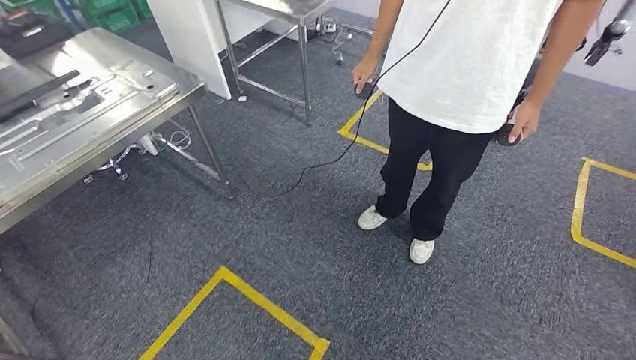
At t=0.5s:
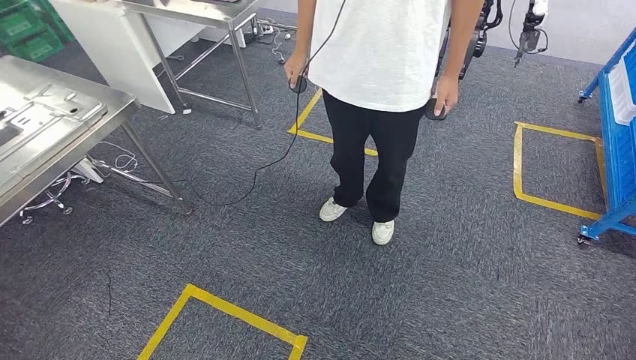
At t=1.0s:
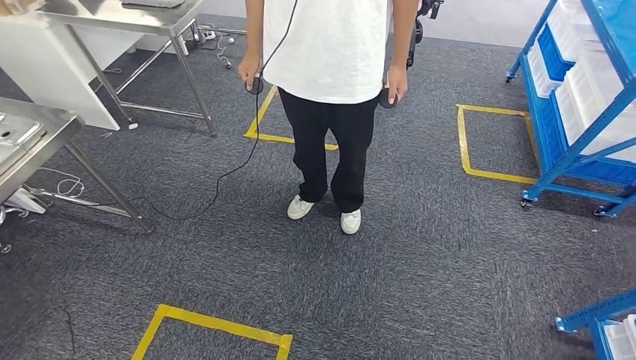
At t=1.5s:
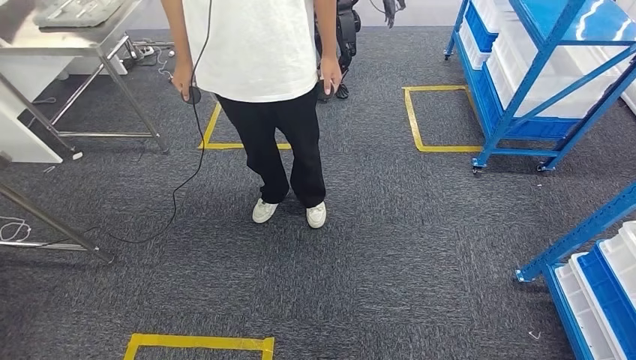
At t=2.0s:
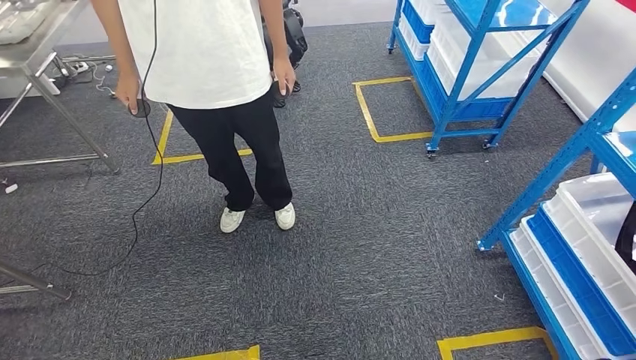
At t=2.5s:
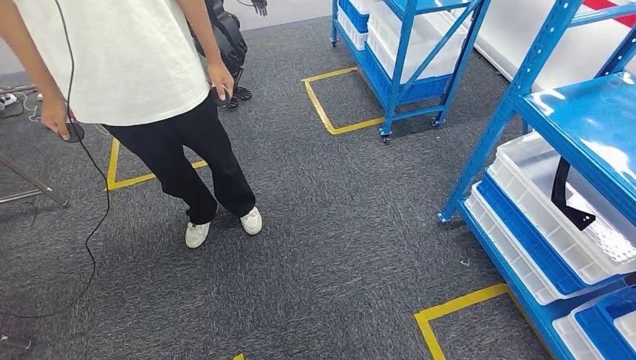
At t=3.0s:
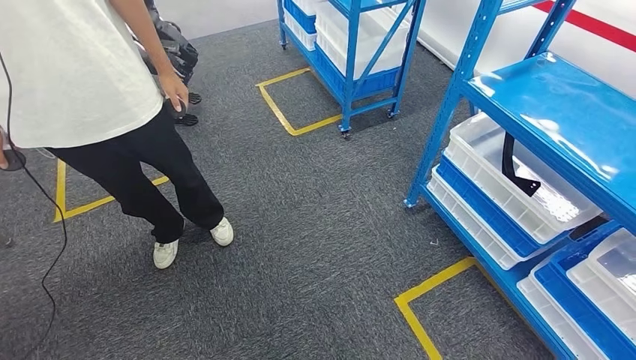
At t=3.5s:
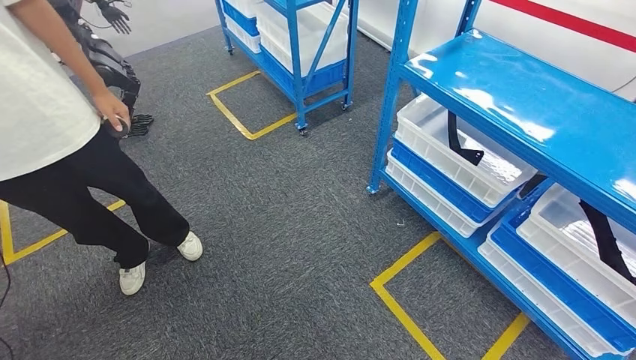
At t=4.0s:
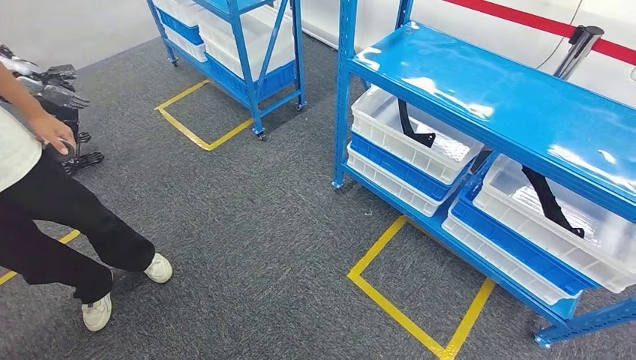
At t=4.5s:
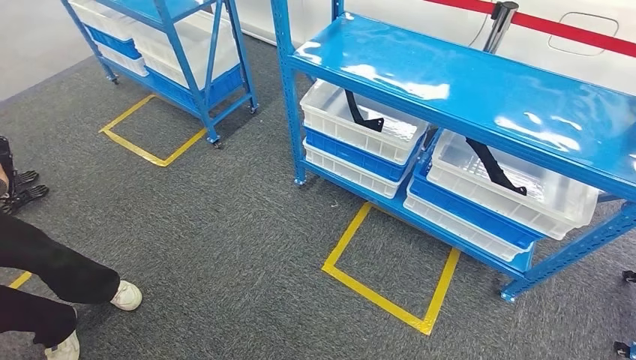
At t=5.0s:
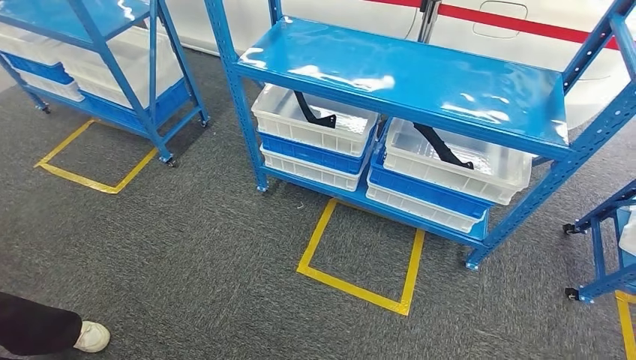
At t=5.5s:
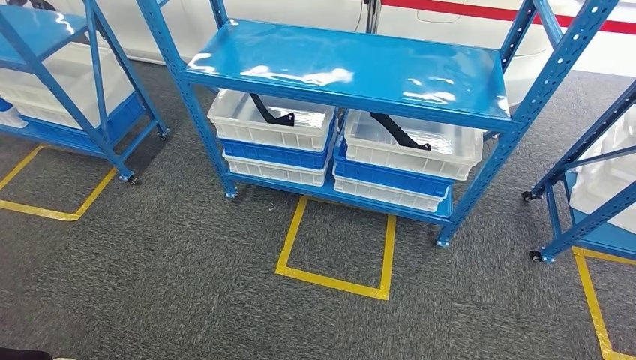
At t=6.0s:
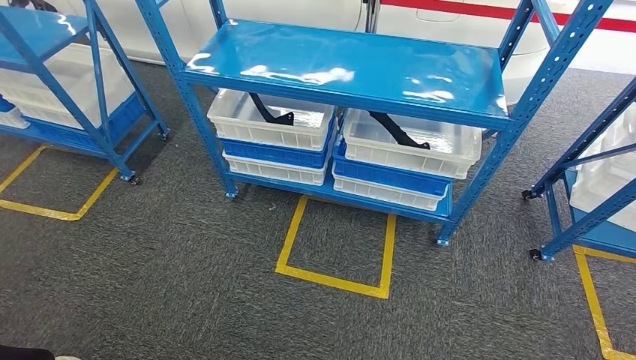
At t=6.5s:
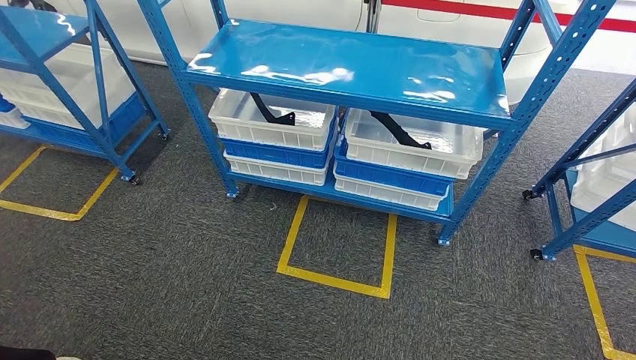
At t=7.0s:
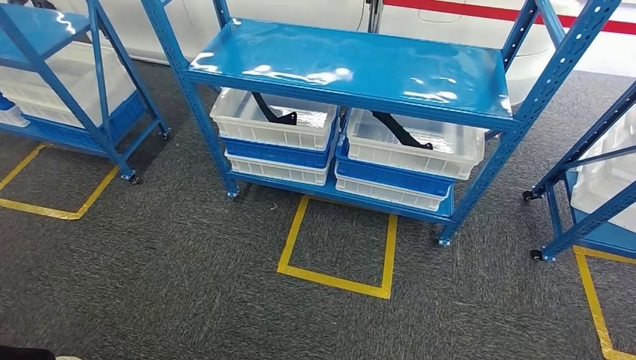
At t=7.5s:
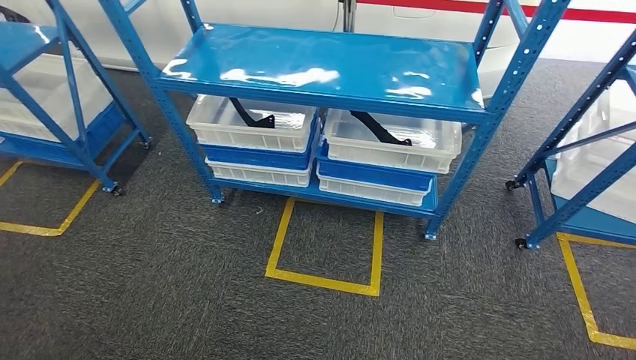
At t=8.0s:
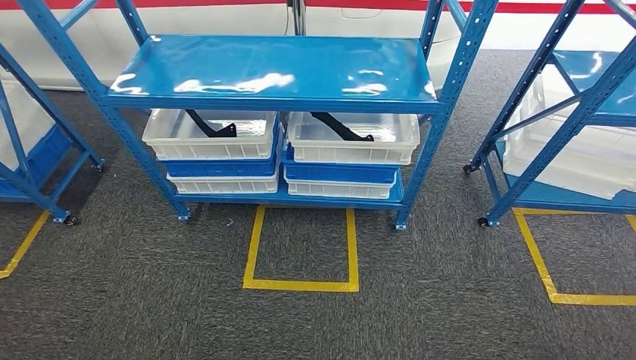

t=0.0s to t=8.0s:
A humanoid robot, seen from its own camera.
Step, t=0.0s to t=8.0s: Return to the initial position at the shelf.
